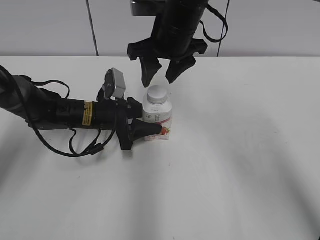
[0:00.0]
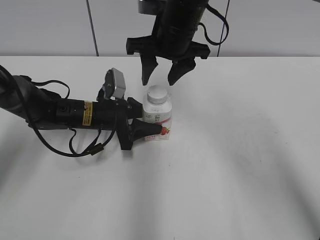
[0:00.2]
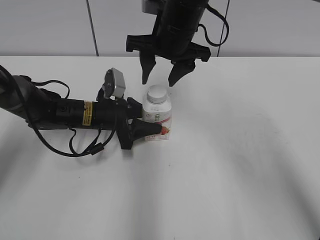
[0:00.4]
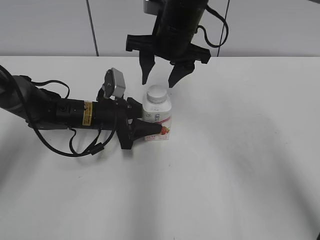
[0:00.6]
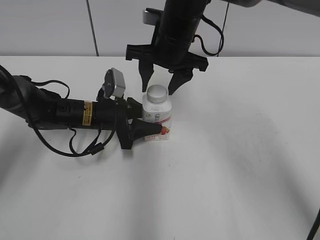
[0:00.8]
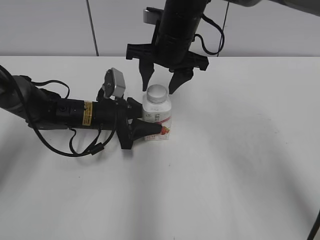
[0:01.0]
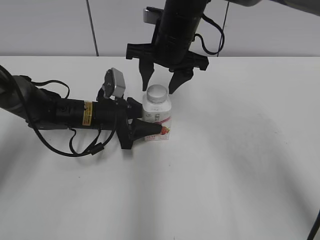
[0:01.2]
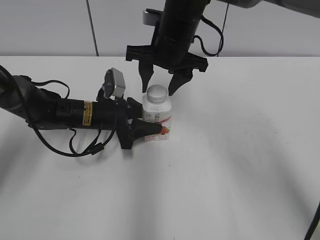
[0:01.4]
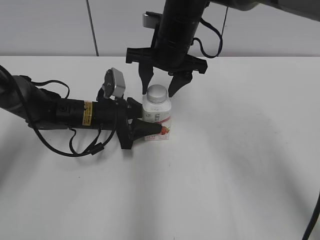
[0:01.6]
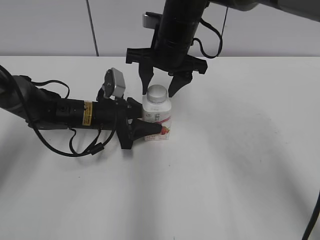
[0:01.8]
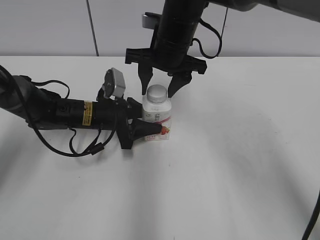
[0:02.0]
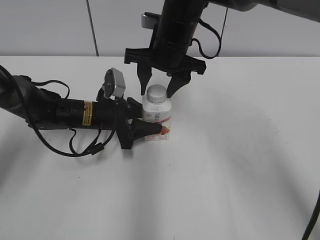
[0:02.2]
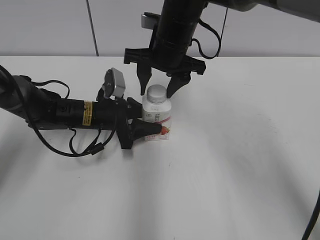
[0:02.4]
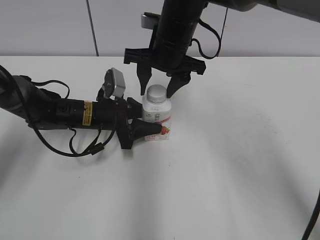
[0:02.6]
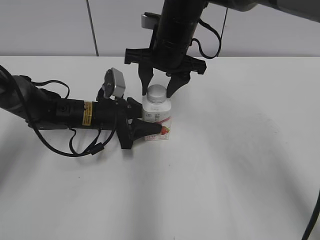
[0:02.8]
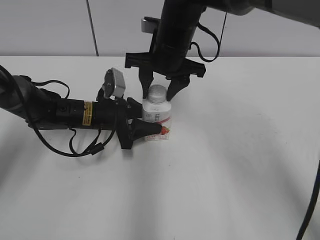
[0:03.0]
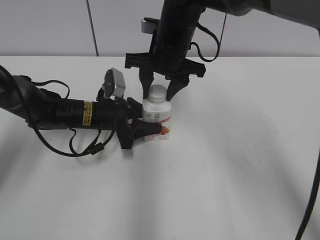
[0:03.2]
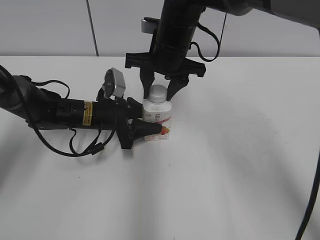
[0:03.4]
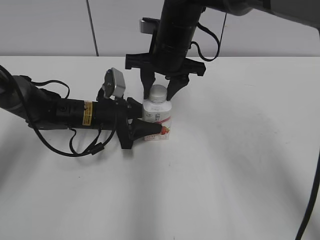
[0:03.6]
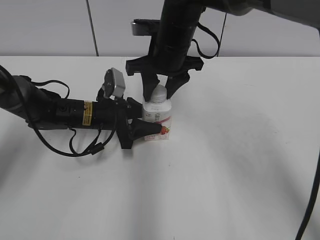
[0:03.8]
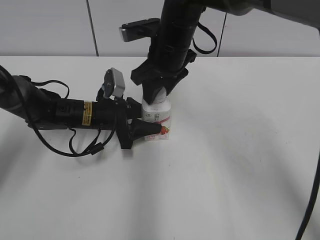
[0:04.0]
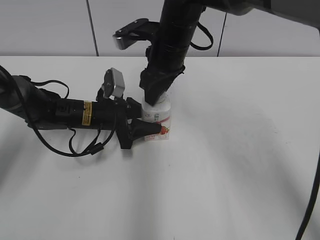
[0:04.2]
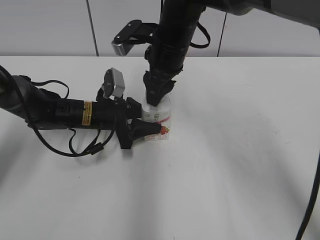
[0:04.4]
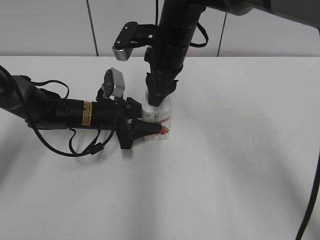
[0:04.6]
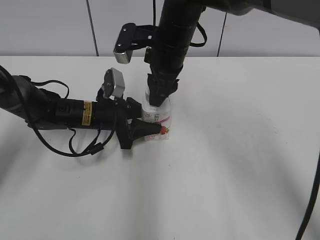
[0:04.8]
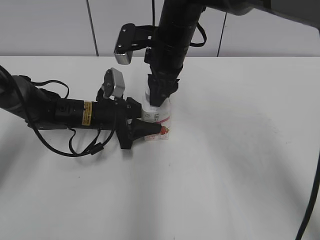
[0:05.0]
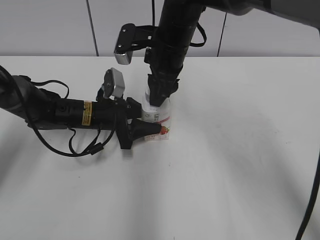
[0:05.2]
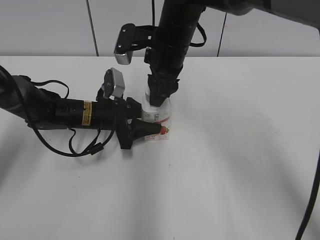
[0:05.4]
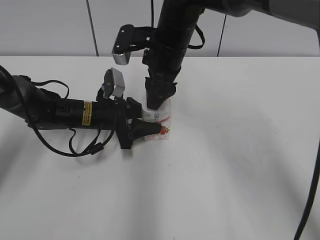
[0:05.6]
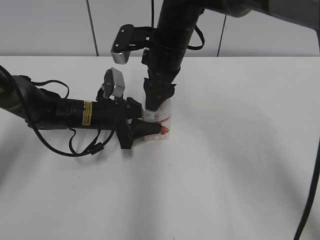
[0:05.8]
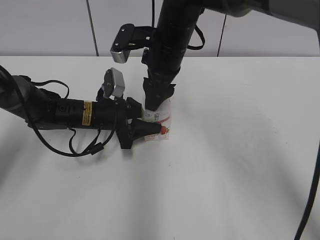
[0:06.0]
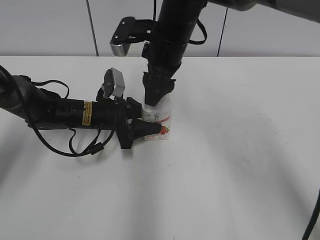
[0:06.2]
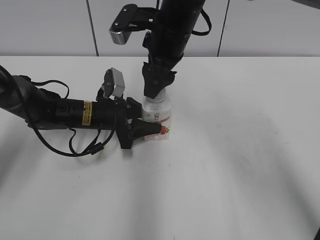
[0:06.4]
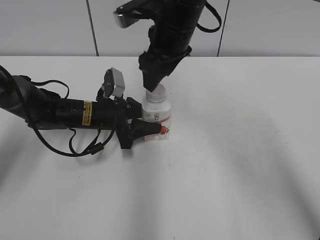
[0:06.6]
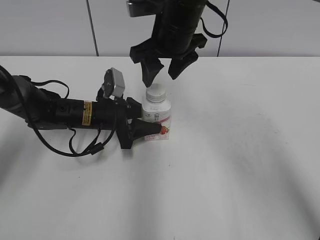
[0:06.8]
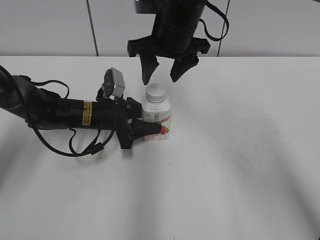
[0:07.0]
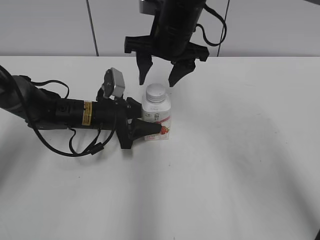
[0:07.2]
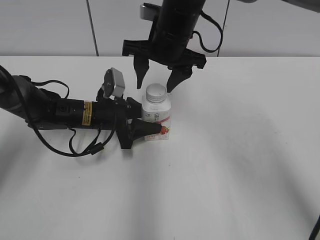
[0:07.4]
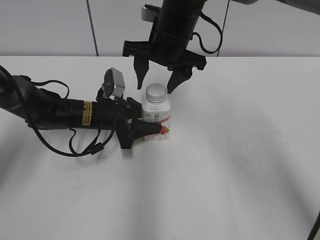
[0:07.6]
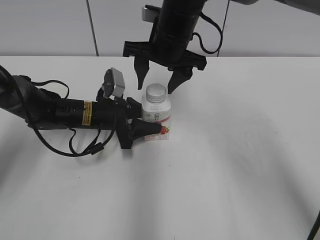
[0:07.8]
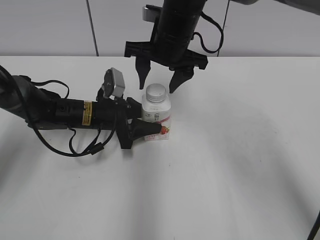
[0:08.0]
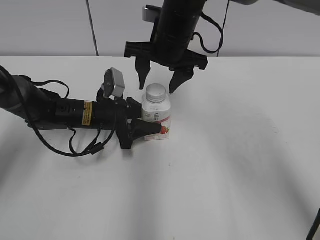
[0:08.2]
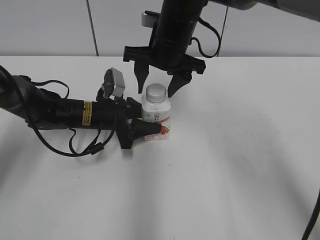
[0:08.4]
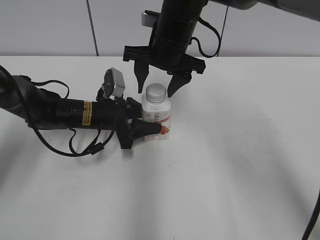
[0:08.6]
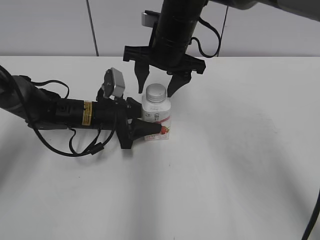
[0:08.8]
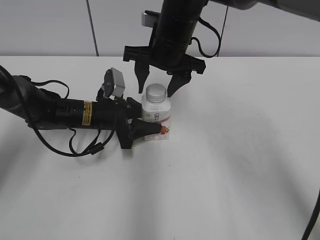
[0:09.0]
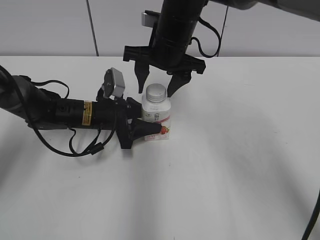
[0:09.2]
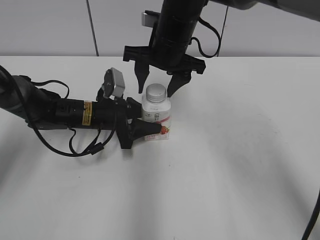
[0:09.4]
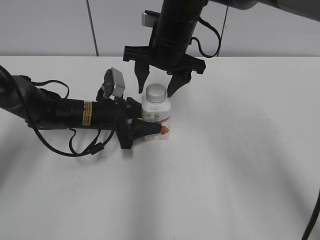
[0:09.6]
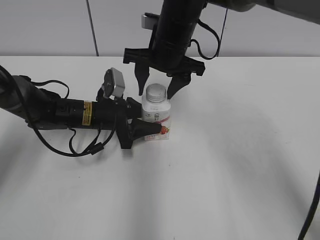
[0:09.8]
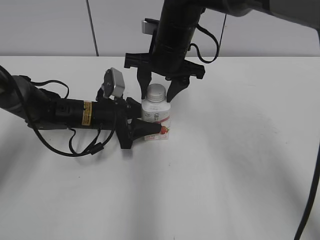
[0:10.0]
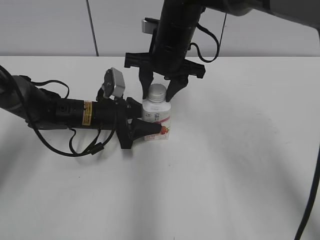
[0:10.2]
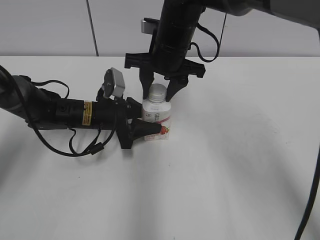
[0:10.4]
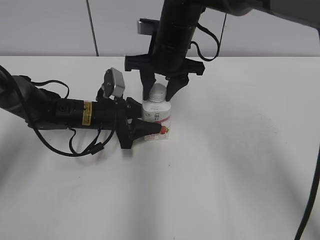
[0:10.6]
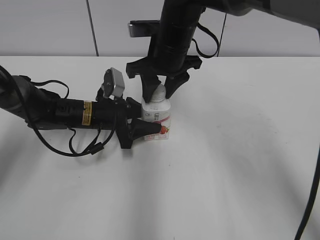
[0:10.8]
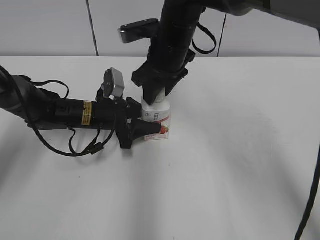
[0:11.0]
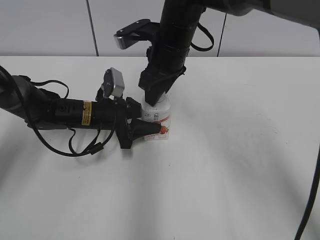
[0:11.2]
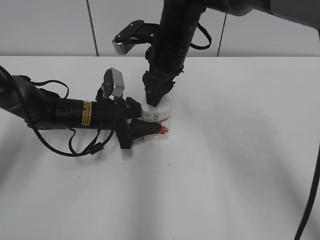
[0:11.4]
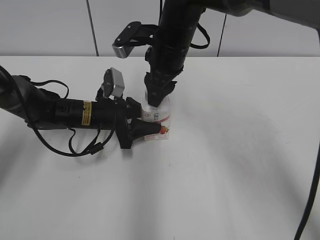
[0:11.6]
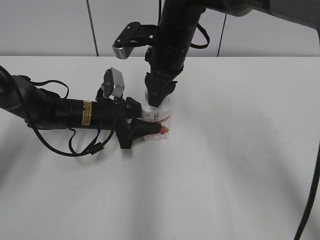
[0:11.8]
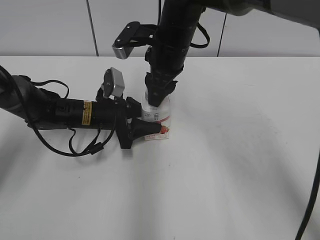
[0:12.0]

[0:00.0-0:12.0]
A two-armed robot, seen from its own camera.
0:01.6 to 0:03.0: The two grippers keep their place.
0:04.4 to 0:06.0: The right gripper opens its fingers.
0:07.6 to 0:09.0: Neither gripper changes place.
0:09.0 to 0:10.4: The right gripper closes its fingers.

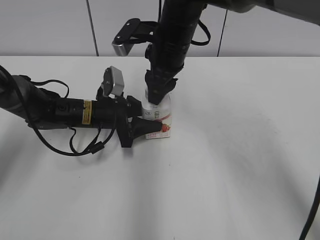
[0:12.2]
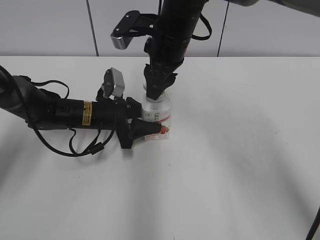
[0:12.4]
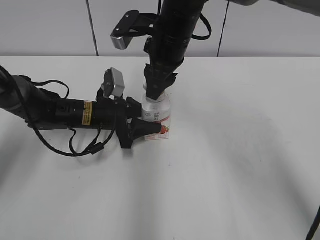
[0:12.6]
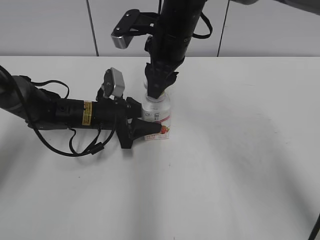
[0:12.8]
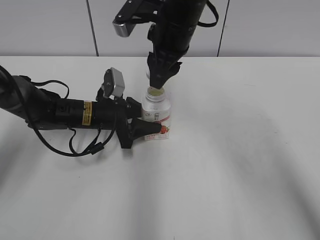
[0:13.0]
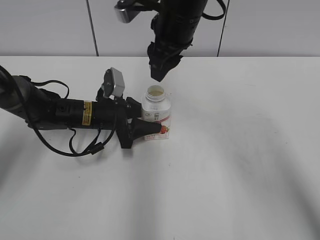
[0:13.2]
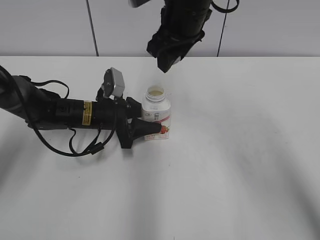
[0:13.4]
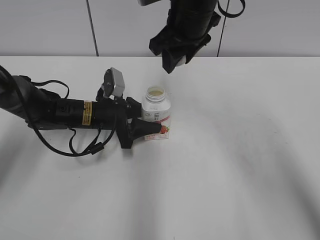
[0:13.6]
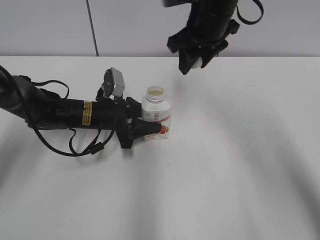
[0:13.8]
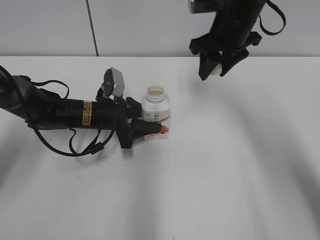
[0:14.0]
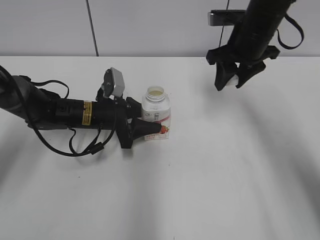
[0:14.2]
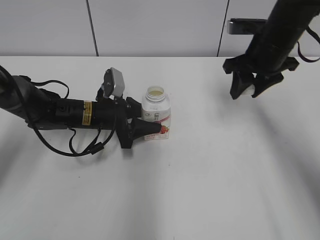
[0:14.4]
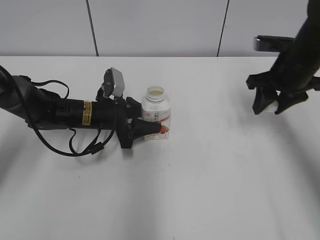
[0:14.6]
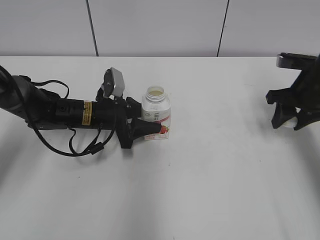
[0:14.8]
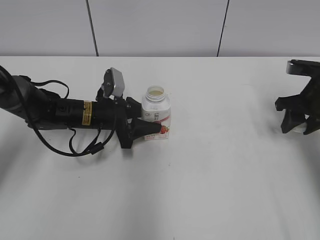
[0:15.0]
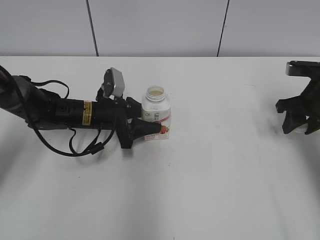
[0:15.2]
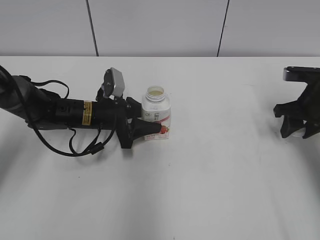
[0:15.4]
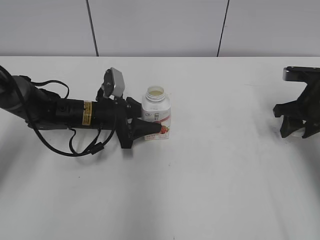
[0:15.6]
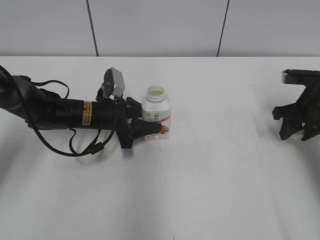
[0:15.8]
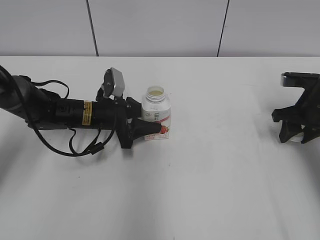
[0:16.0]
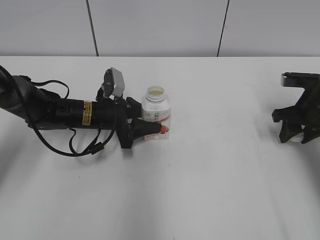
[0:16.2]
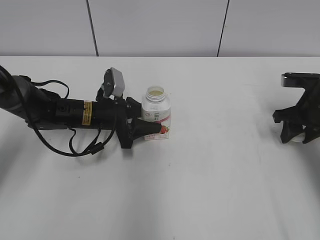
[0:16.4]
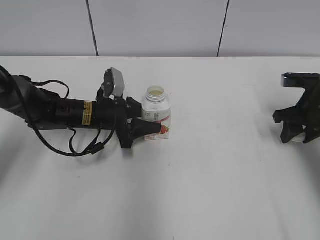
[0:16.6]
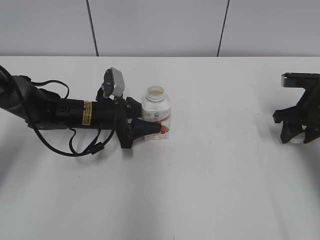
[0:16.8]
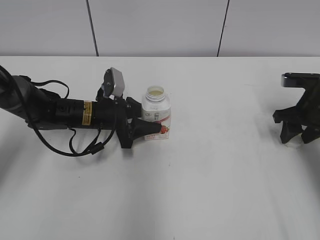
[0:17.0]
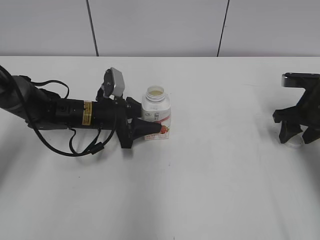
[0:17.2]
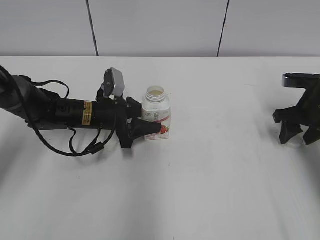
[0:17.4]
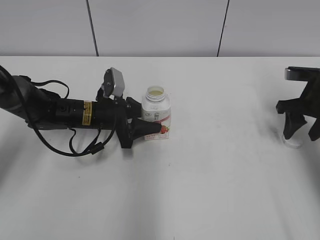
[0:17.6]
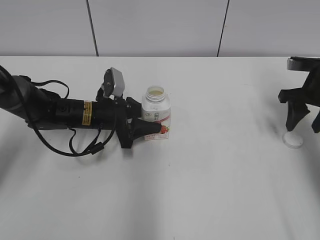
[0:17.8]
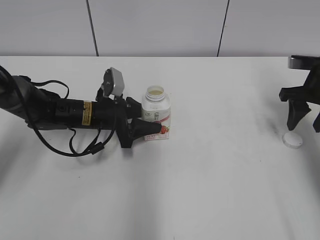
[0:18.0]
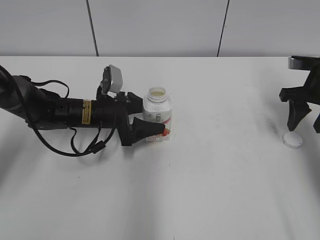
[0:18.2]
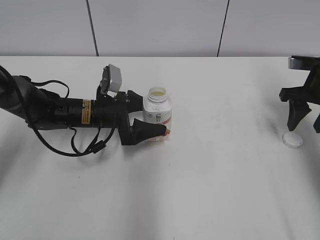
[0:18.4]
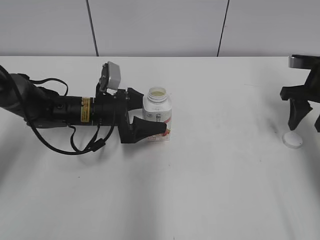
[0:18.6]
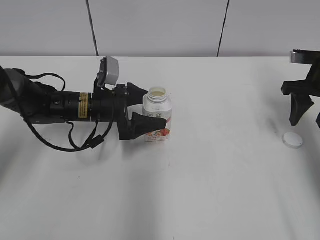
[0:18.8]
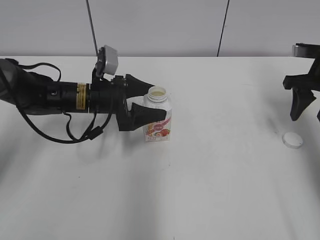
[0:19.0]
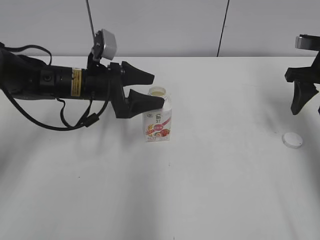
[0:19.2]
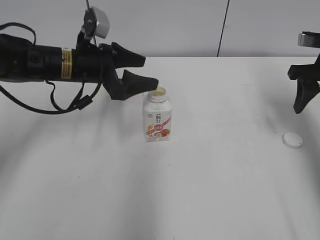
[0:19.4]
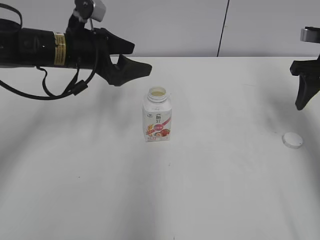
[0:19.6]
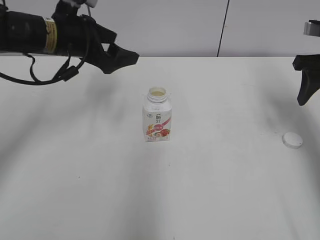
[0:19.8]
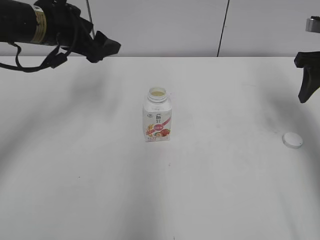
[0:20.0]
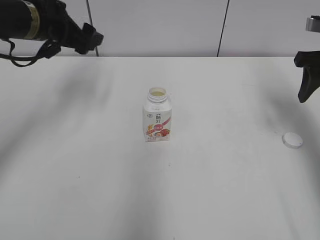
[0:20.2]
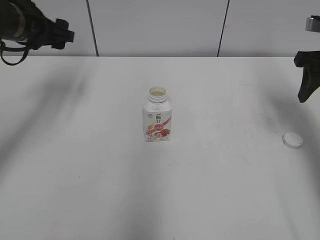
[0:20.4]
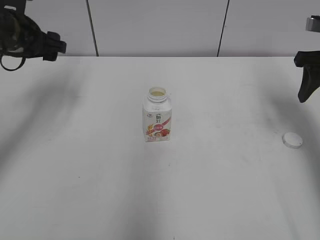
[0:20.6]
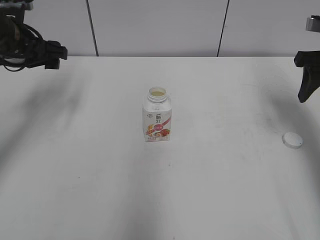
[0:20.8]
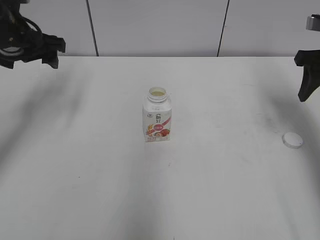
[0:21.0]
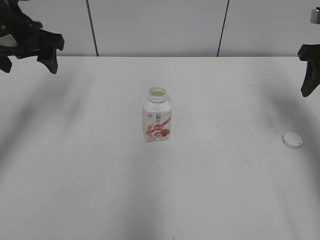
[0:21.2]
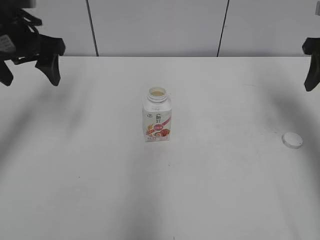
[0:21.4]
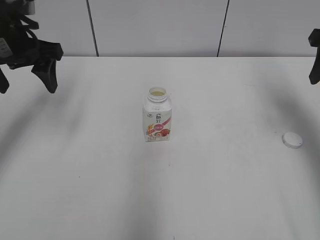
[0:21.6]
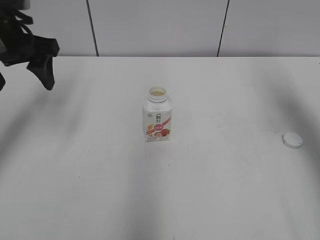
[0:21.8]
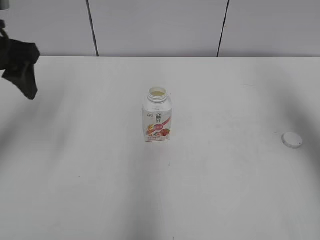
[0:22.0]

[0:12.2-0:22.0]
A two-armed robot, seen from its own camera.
Step, 0:12.6 to 0:17.2: Place the bottle cap on the right.
0:12.2 to 0:13.6: The right gripper moves roughly 5 cm.
0:13.6 to 0:15.0: The right gripper shifts about 25 cm to the right and downward.
0:15.0 to 0:16.4: The grippers move only a little.
0:16.4 to 0:17.8: The right gripper opens.
0:17.8 to 0:19.2: The left gripper shifts roughly 10 cm upward, and opens up.
0:19.2 to 0:20.6: The left gripper goes approximately 15 cm to the left and upward.
0:20.6 to 0:22.0: The left gripper is displaced backward and upward by some 10 cm. Meanwhile the right gripper moves upward and backward, some 15 cm.

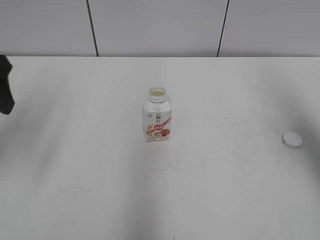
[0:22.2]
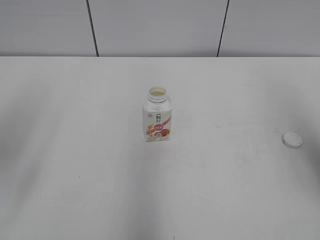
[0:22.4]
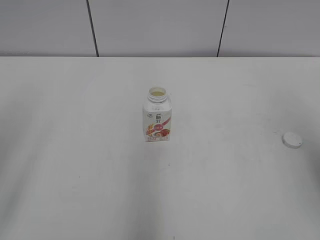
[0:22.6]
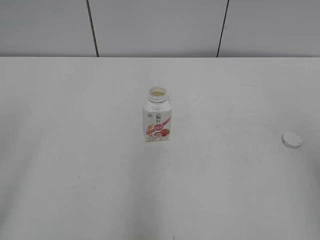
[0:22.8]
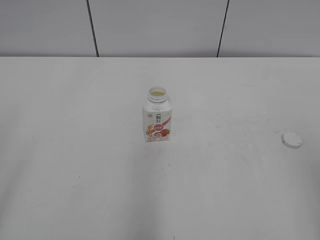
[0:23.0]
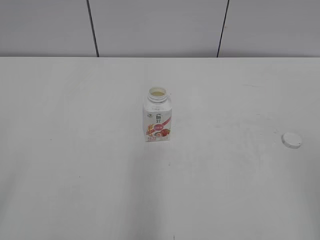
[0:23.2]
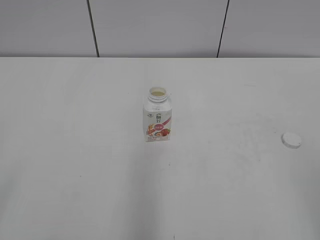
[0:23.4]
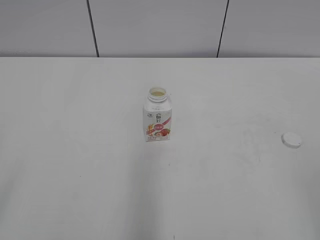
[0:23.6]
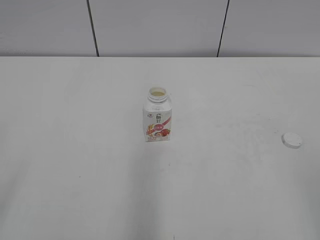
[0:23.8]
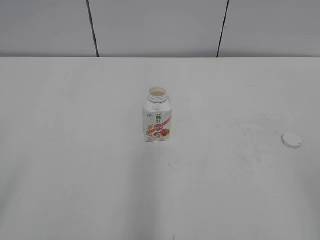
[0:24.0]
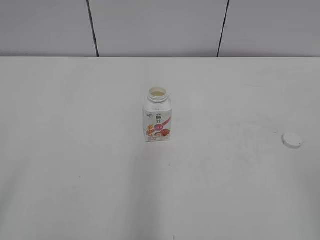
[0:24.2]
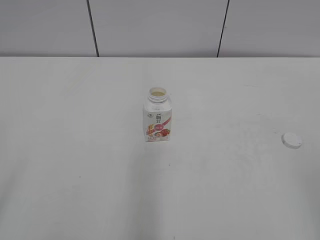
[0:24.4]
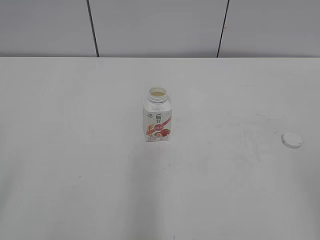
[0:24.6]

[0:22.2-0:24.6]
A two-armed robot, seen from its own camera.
0:22.2 to 0:23.4: Both grippers move backward, about 25 cm.
